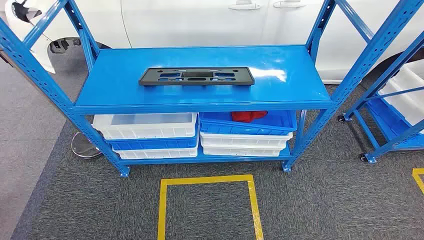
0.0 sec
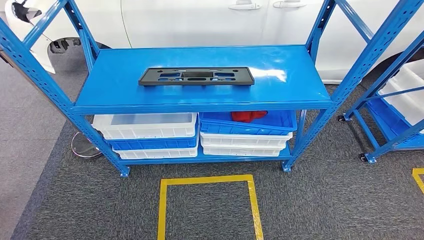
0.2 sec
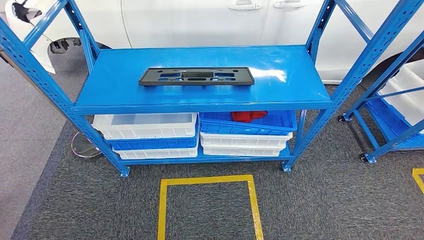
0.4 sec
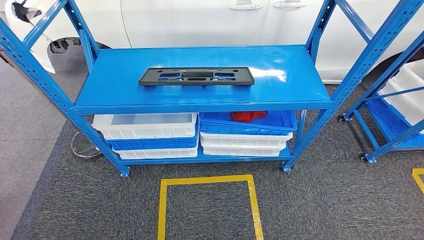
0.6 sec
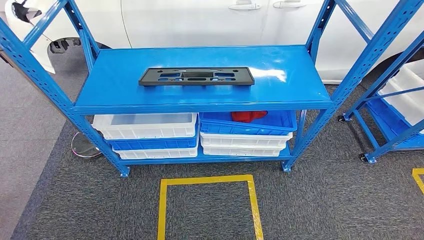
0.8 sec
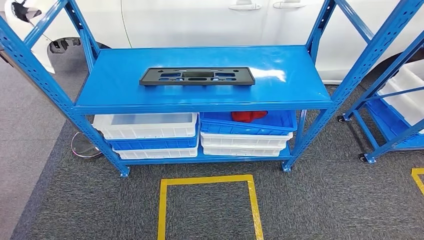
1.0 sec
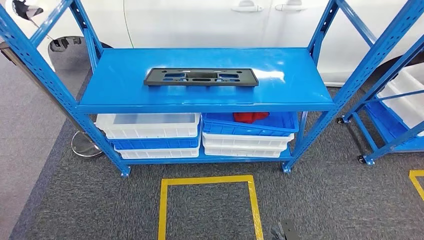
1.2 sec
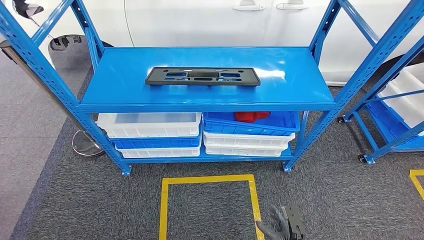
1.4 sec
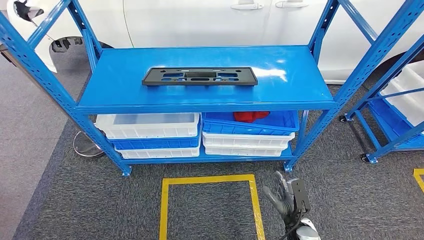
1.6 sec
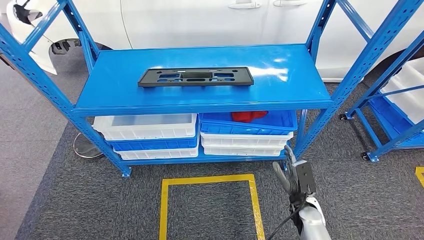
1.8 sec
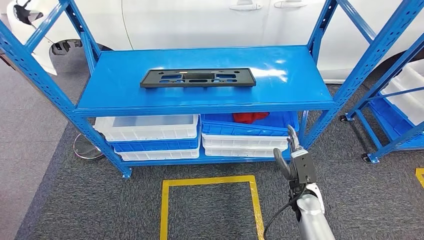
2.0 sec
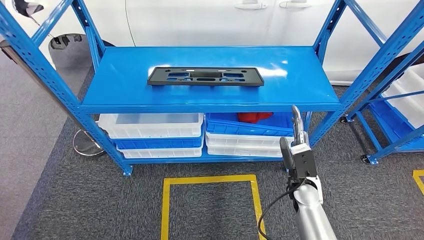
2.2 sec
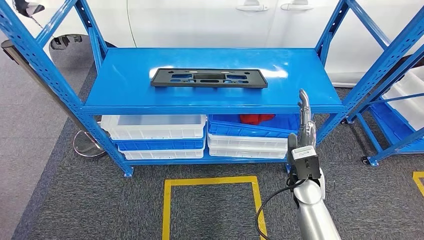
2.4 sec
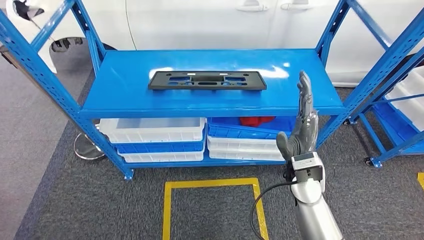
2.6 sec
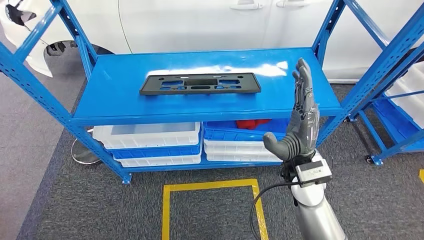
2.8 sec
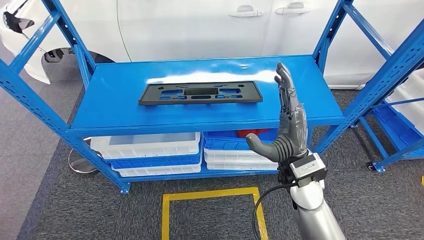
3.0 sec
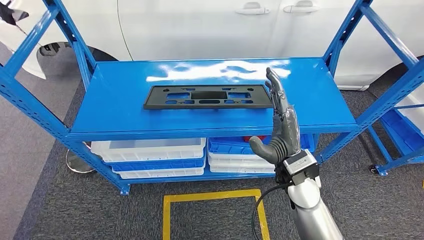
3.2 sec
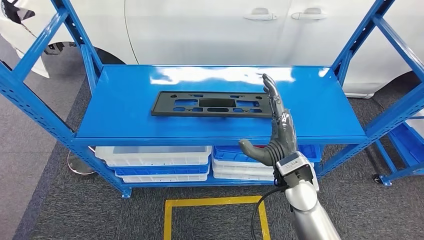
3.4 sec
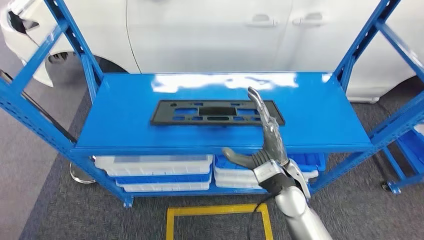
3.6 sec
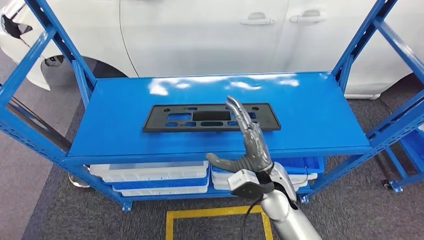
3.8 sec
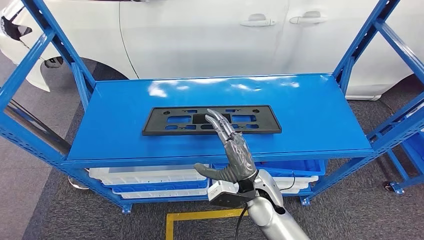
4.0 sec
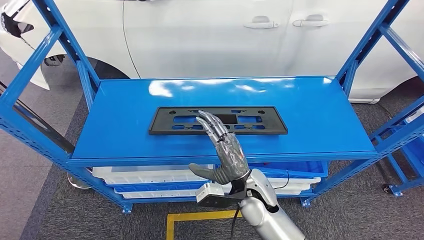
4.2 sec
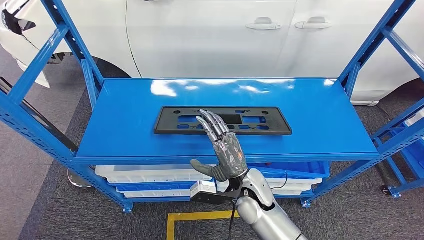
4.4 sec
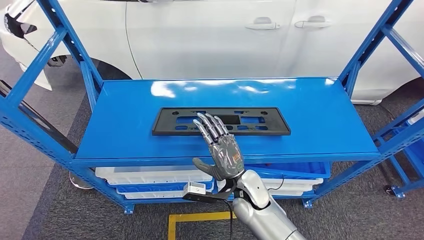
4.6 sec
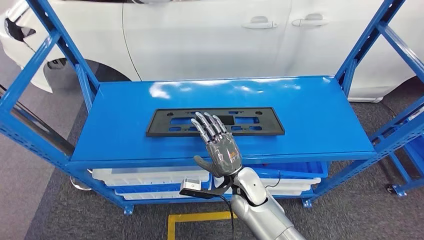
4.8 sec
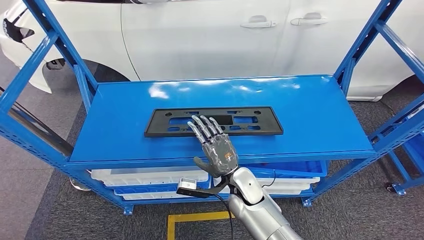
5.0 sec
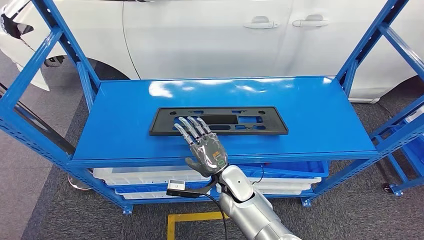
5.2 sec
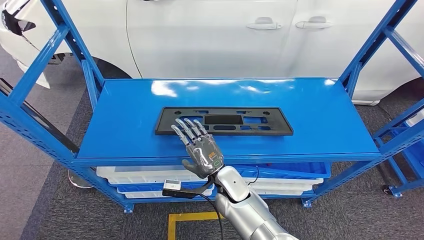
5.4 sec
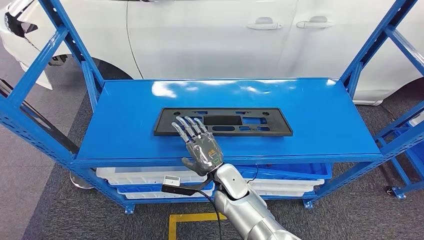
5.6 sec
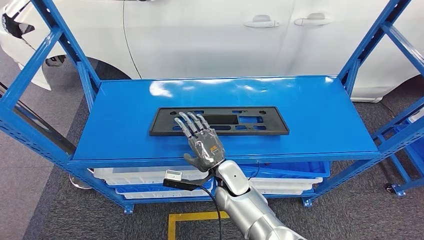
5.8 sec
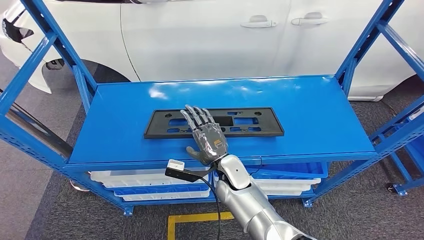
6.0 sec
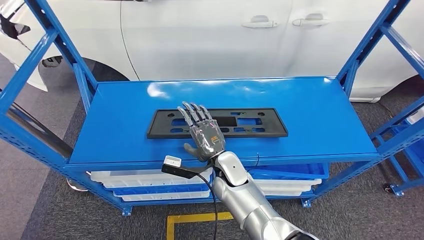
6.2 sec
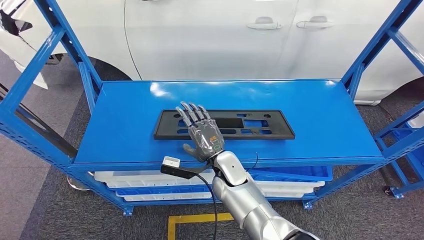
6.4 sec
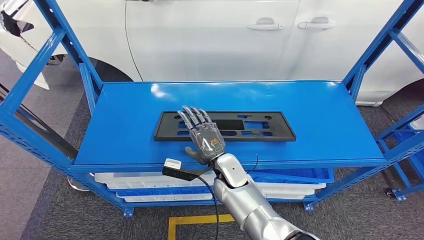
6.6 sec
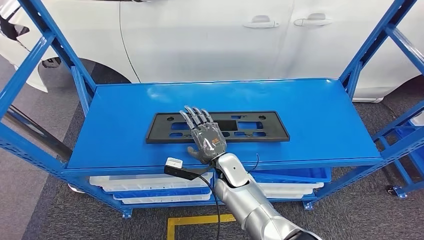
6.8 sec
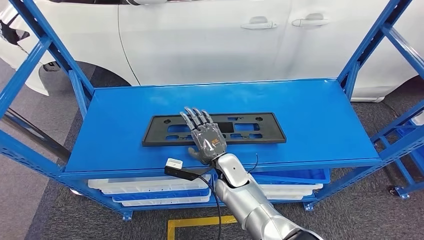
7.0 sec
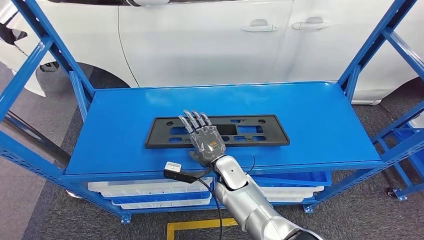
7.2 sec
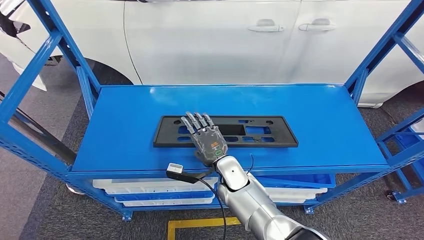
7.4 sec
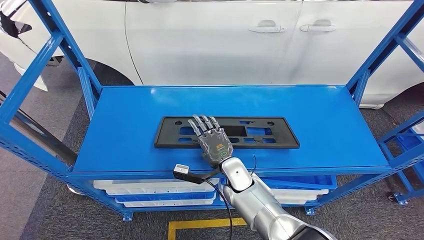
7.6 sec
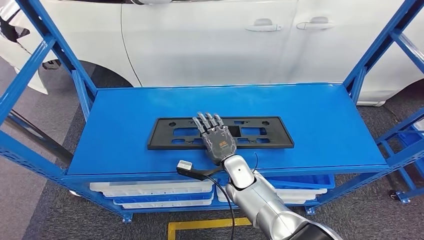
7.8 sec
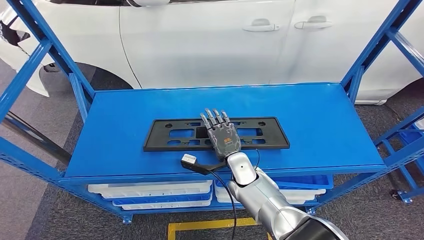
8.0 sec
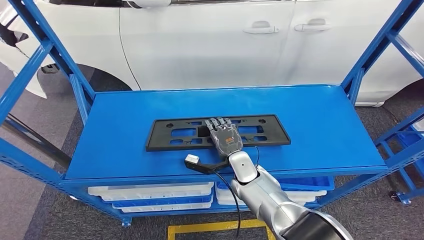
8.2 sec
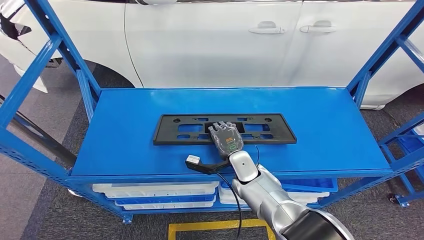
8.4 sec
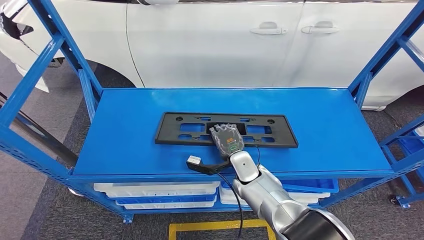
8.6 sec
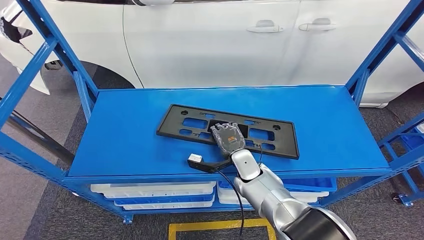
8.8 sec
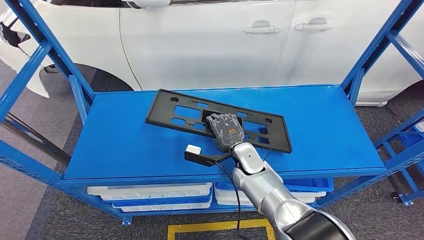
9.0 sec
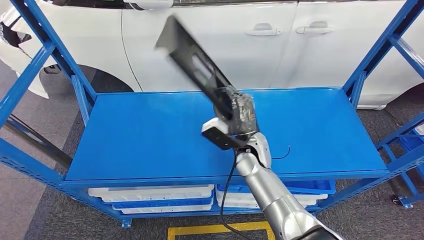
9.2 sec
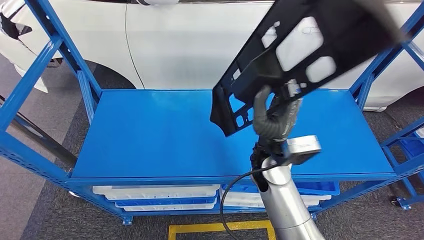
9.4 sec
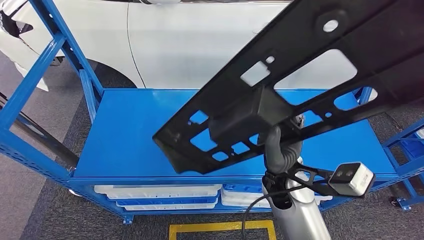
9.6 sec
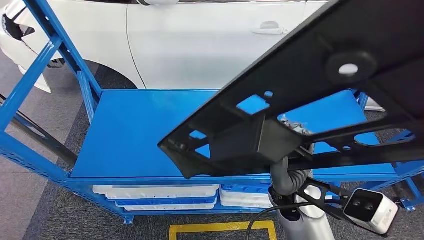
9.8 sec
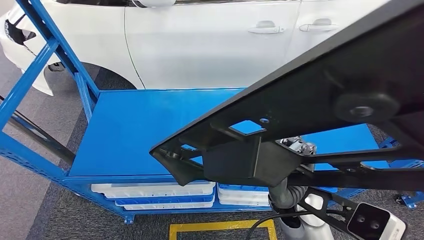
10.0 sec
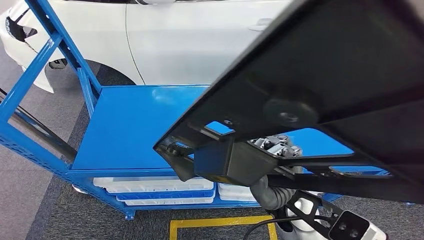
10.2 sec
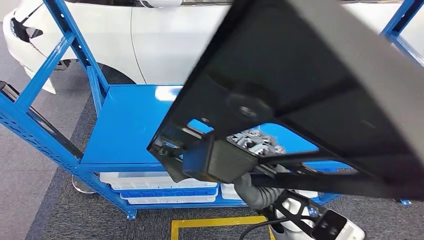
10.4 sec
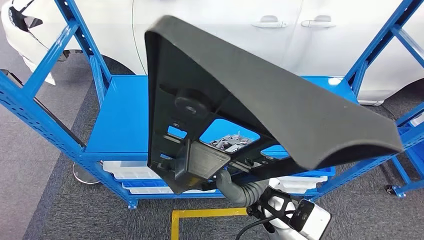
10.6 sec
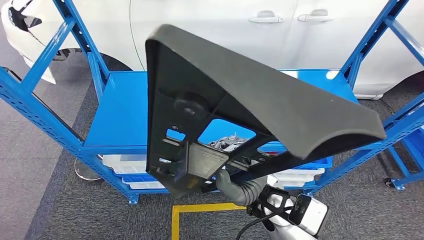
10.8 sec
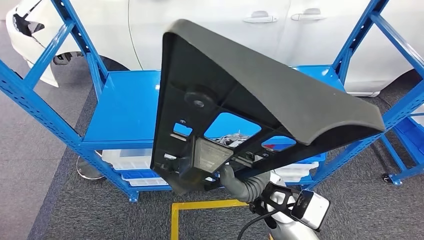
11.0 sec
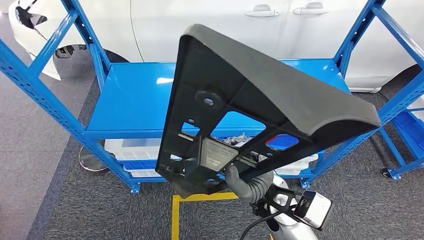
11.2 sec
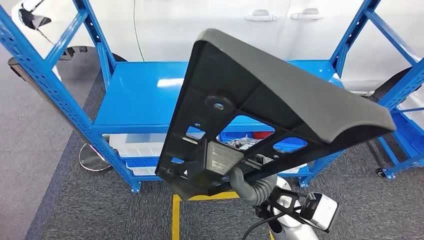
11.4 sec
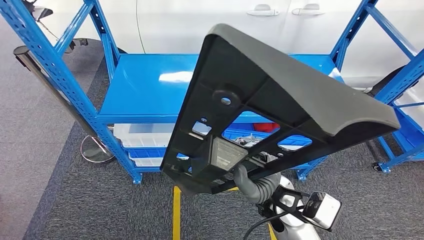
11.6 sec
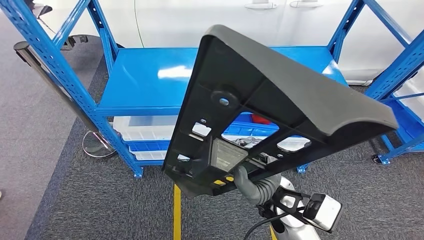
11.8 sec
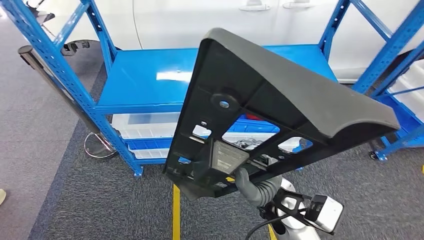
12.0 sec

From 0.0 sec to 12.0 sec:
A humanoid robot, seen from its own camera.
Step, from 0.0 sec to 10.2 sec: Pick up the small component from the shelf.

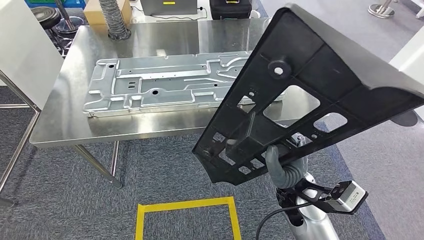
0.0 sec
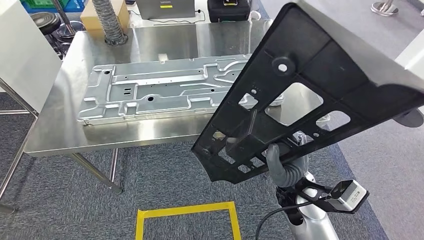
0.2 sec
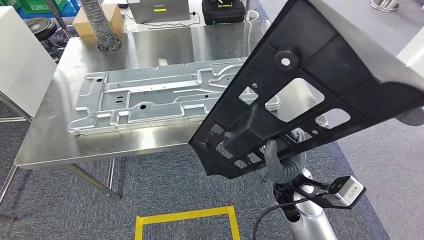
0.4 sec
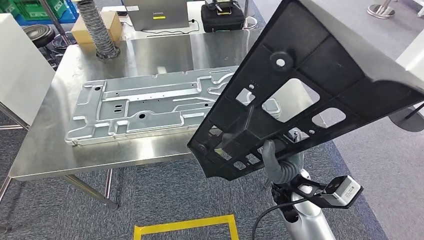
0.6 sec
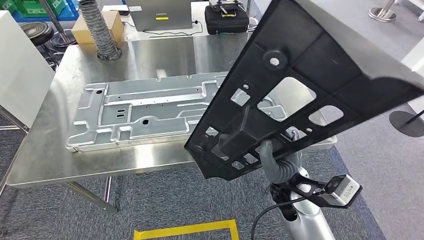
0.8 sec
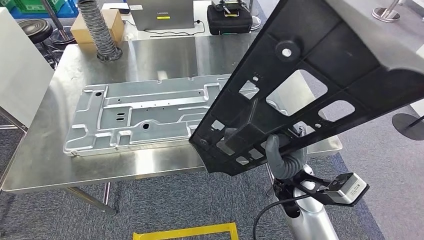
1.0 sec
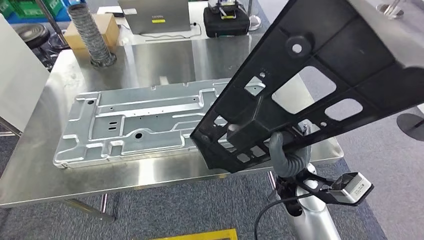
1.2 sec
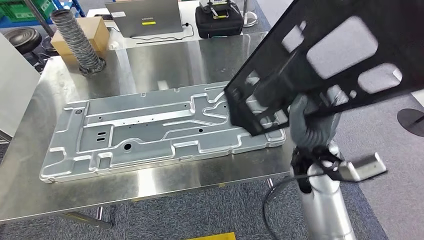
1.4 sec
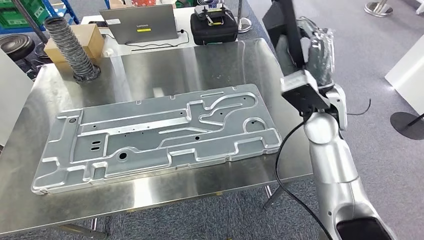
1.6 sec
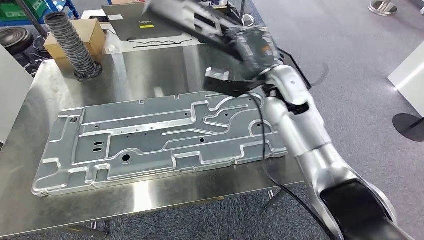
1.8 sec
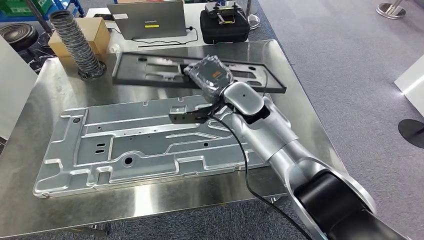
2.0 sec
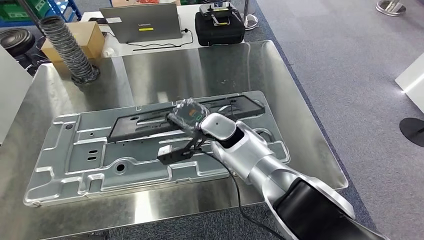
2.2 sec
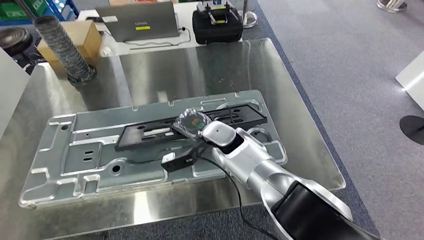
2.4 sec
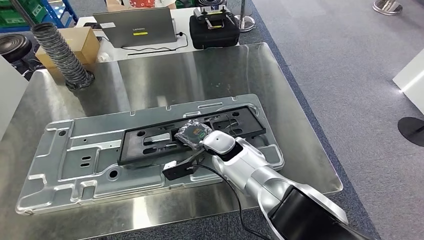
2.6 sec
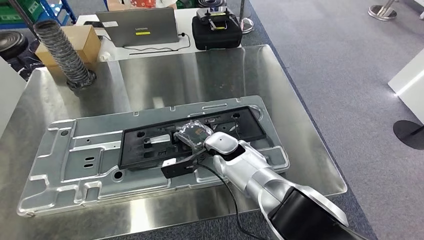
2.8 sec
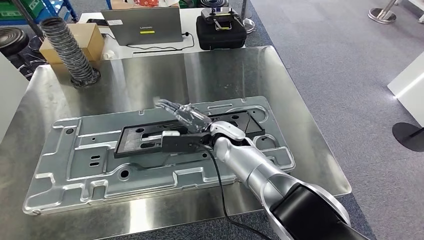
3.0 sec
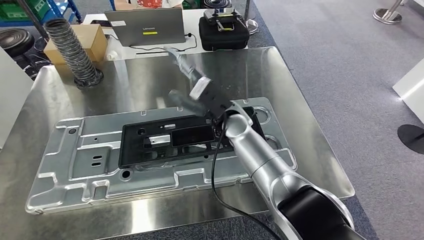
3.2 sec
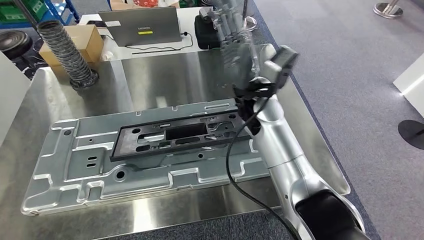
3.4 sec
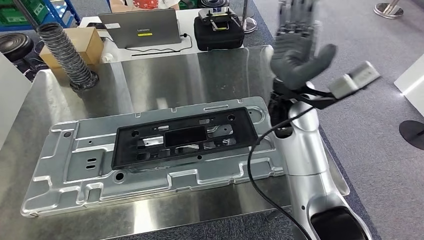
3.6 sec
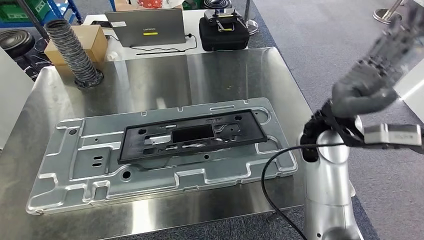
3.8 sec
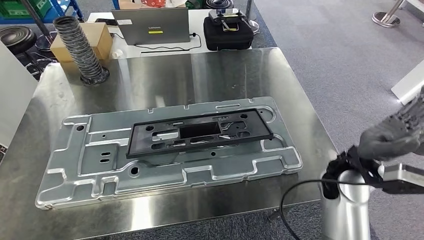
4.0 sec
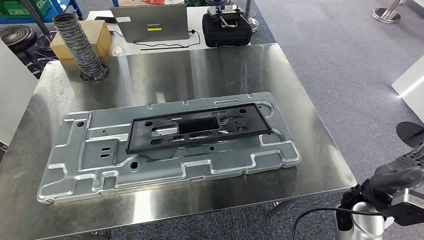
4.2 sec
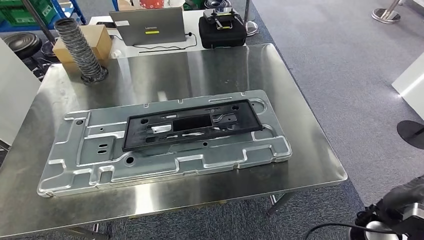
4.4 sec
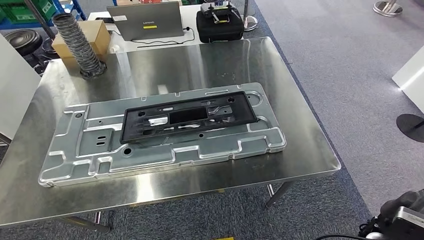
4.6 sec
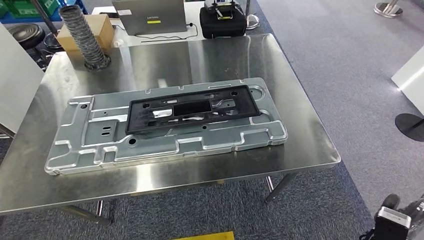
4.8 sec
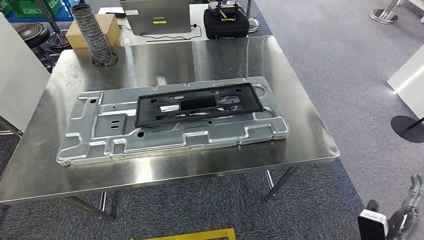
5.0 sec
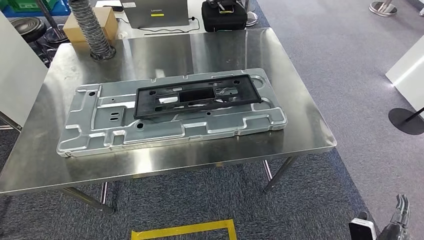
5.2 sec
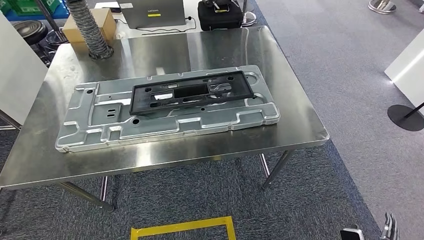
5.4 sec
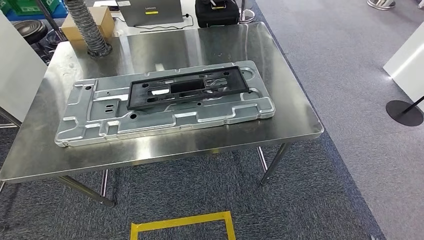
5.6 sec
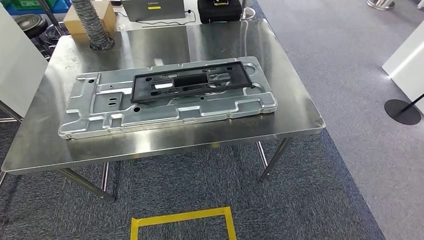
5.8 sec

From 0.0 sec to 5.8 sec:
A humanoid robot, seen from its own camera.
Step, from 1.4 sec to 4.0 sec: Insert the small component into the corresponding slot on the workbench.
